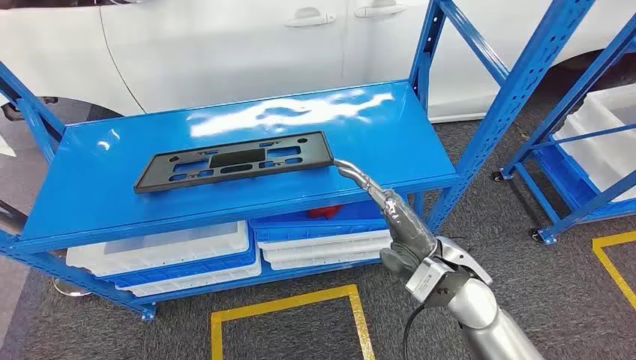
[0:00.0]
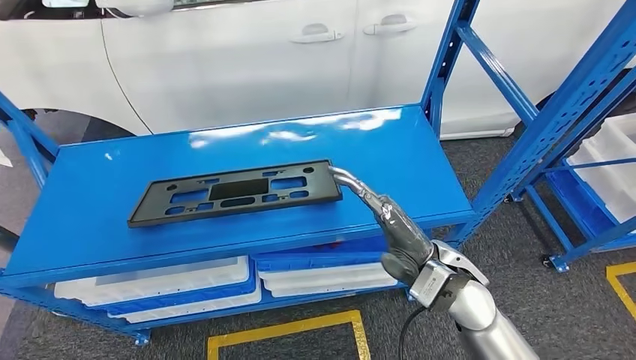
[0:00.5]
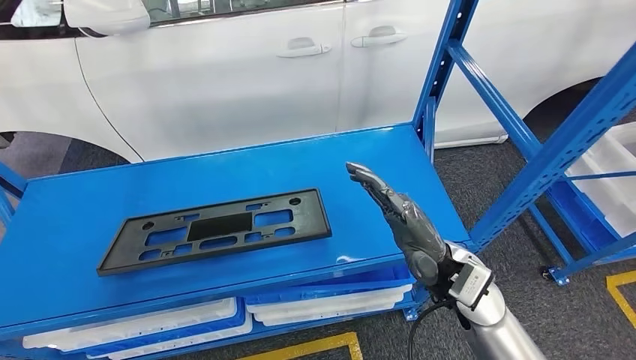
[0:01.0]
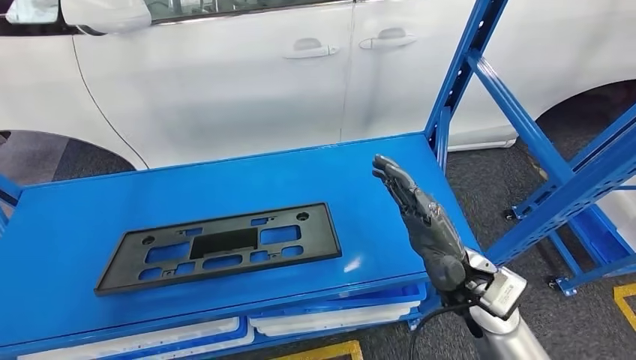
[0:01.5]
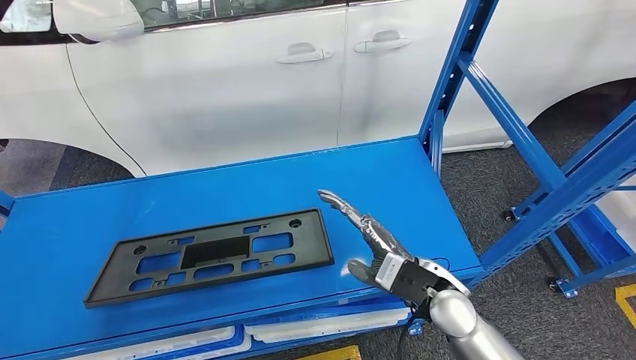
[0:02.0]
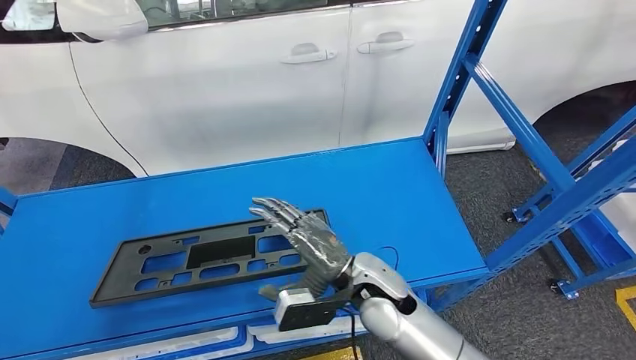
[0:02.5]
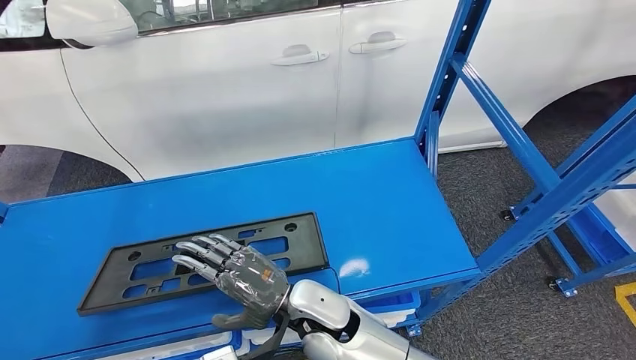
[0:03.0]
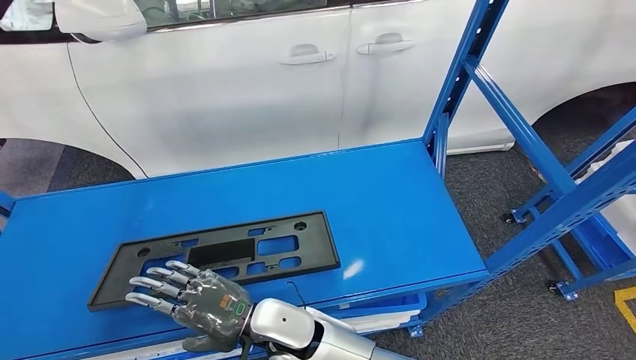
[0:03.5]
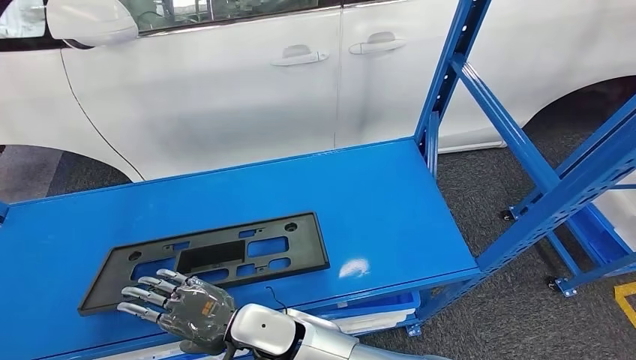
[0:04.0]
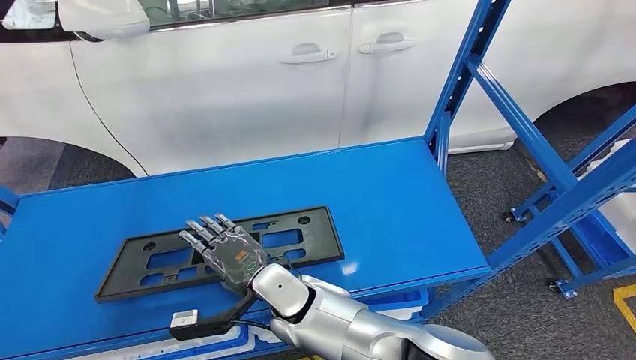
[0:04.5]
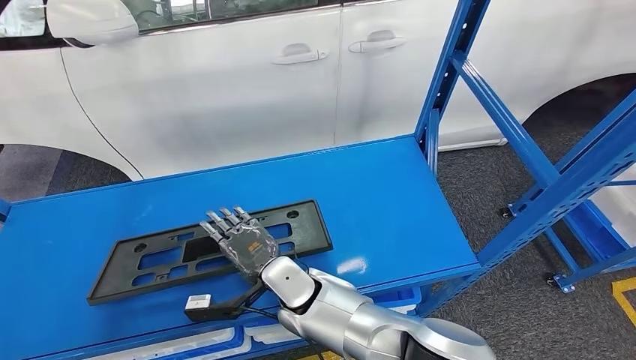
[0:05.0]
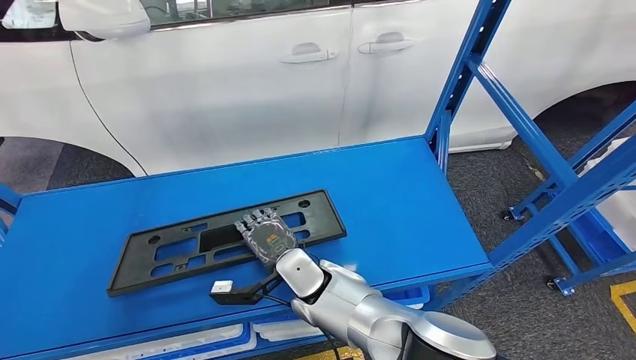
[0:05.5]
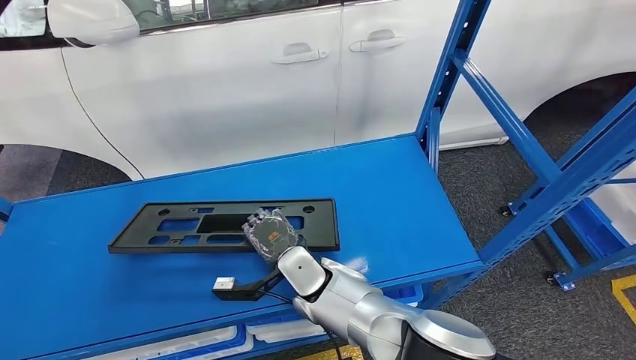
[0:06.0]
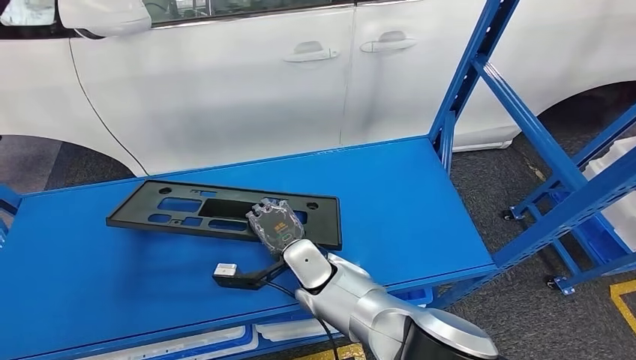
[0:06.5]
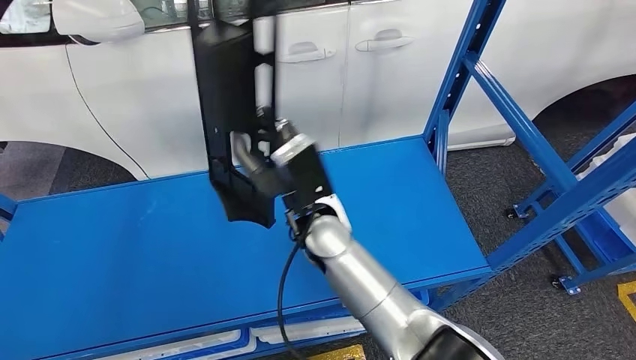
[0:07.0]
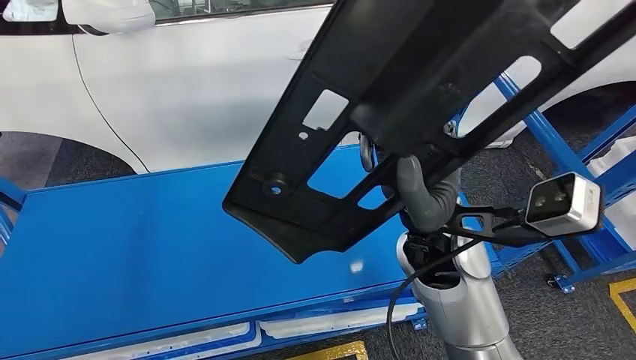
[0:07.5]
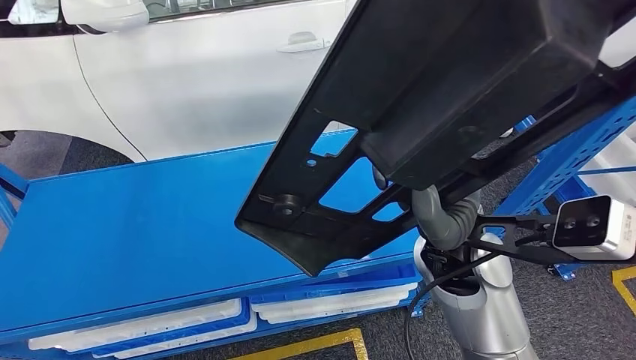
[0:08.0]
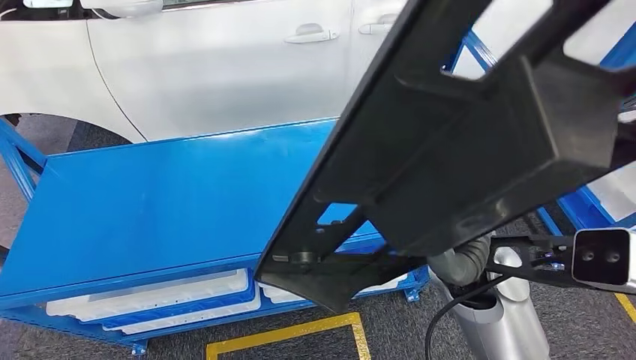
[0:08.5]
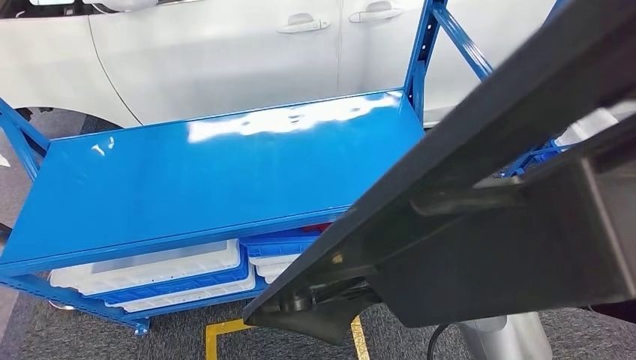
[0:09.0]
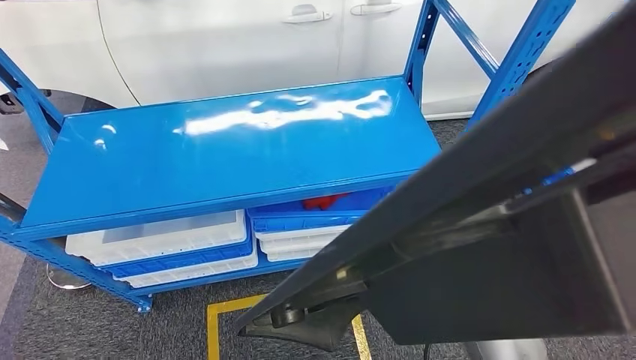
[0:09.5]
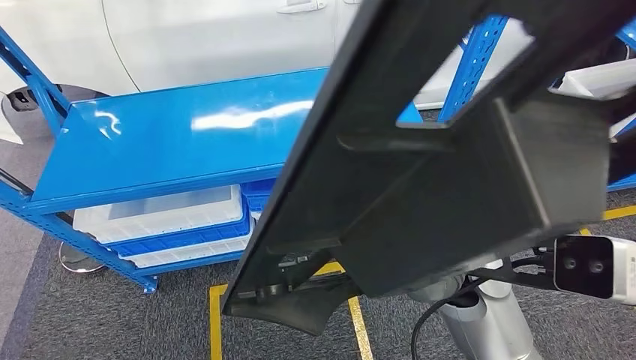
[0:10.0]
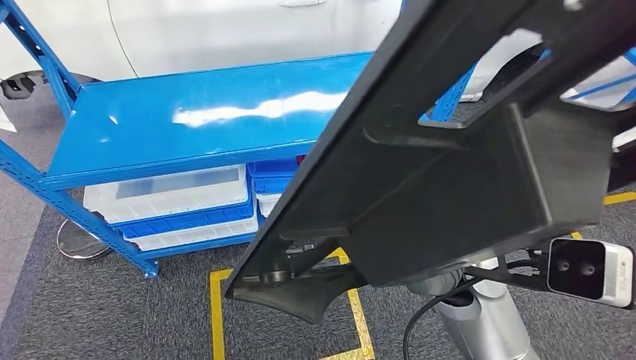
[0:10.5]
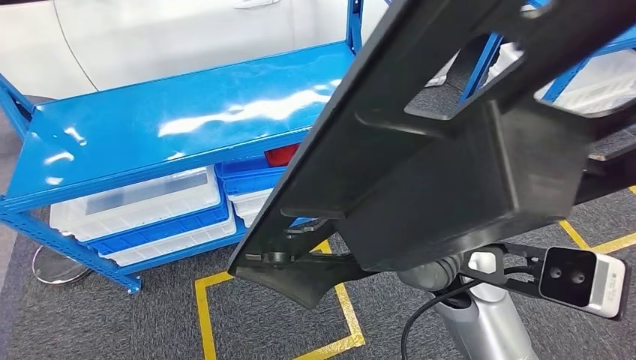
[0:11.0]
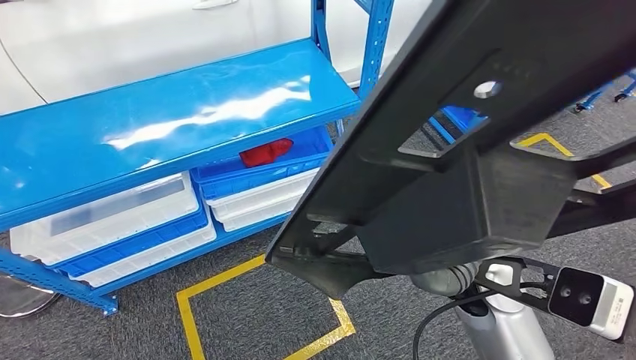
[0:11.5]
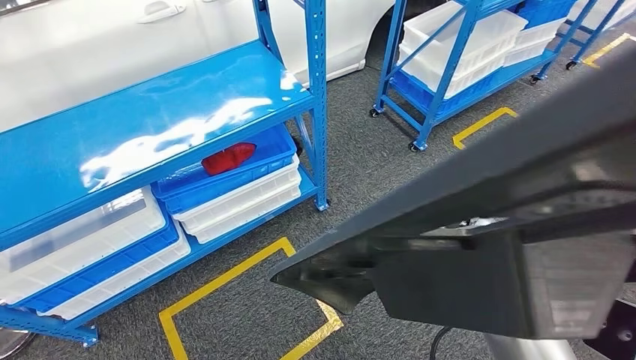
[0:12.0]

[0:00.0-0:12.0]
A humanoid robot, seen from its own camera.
Step, 0:00.0 to 0:07.5: Pick up the small component from the shelf.
0:02.0 to 0:04.0: The right hand is displaced to the left by approximately 25 cm.

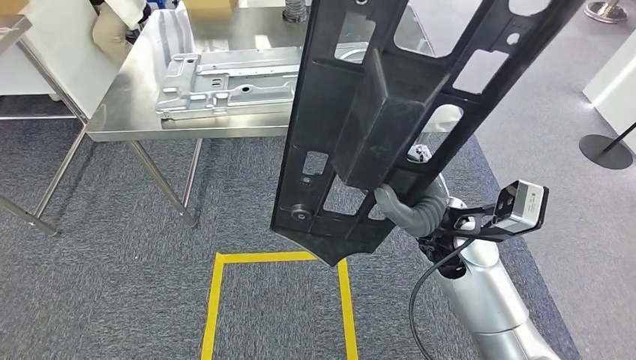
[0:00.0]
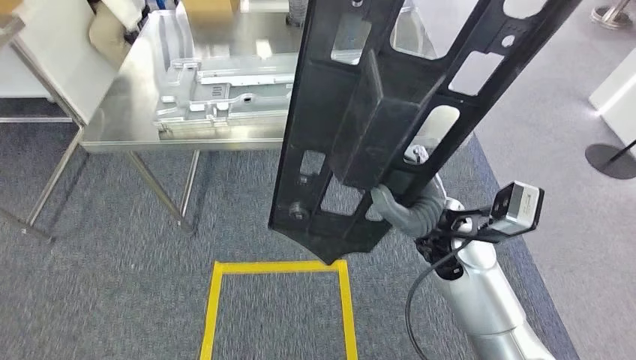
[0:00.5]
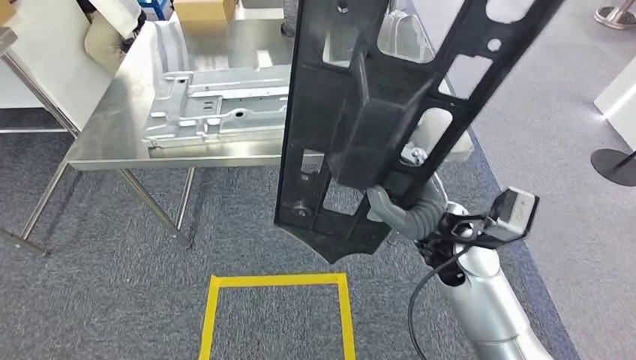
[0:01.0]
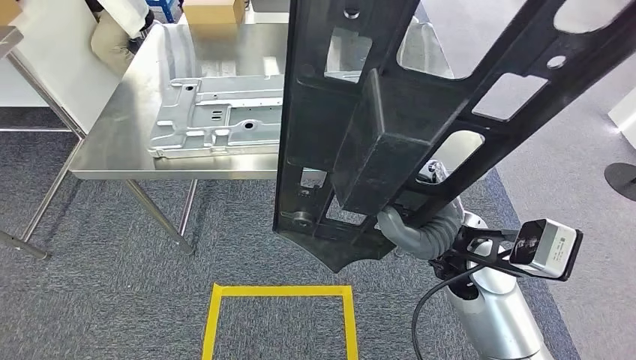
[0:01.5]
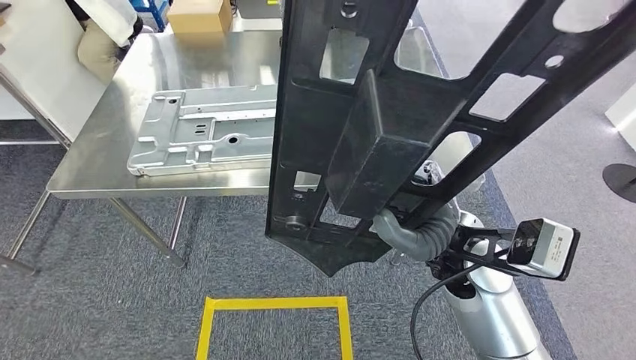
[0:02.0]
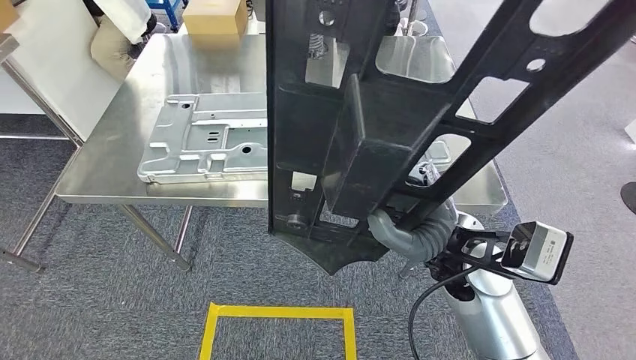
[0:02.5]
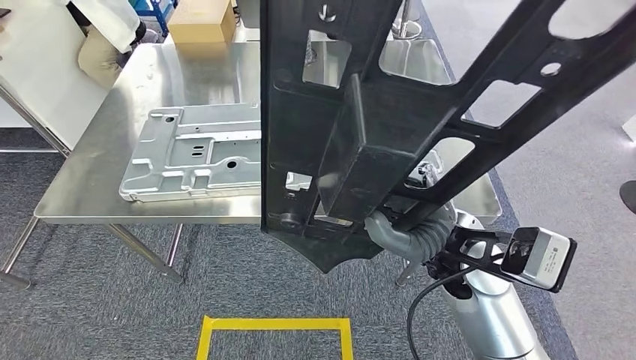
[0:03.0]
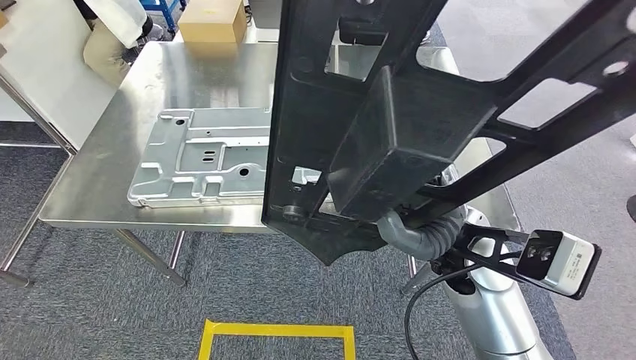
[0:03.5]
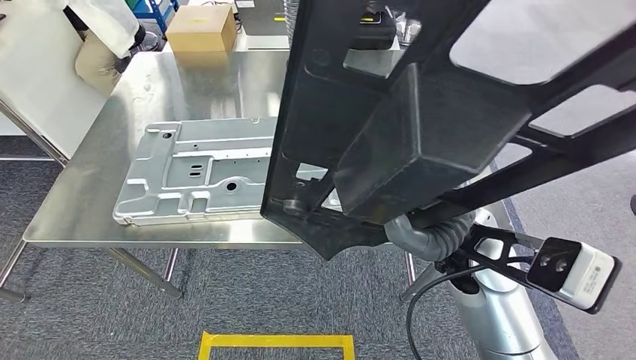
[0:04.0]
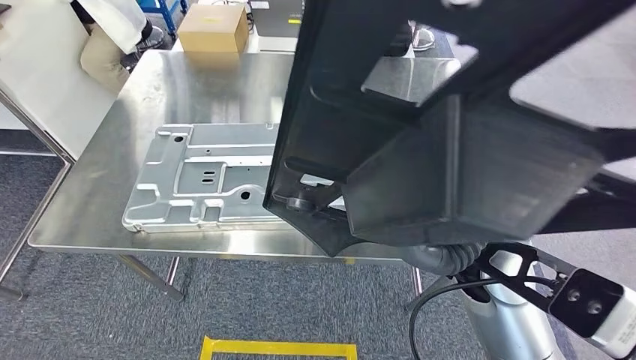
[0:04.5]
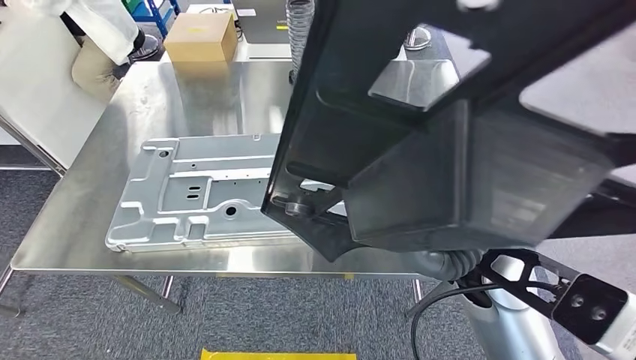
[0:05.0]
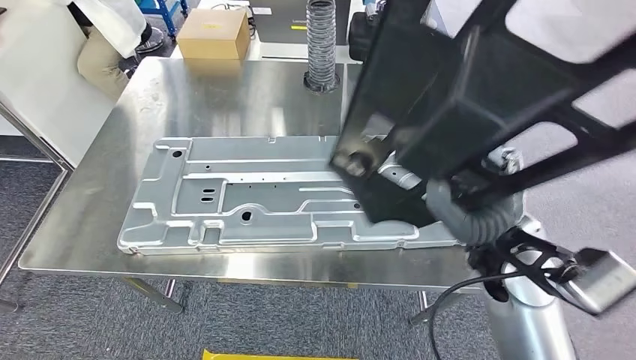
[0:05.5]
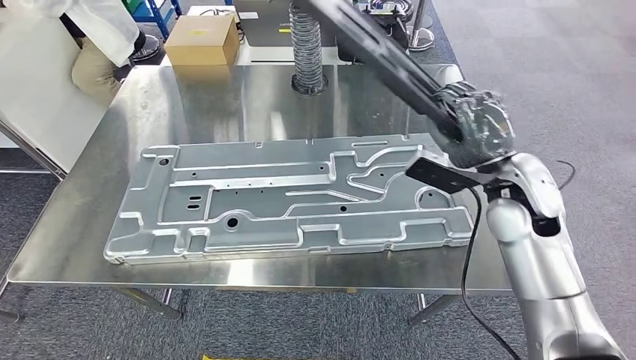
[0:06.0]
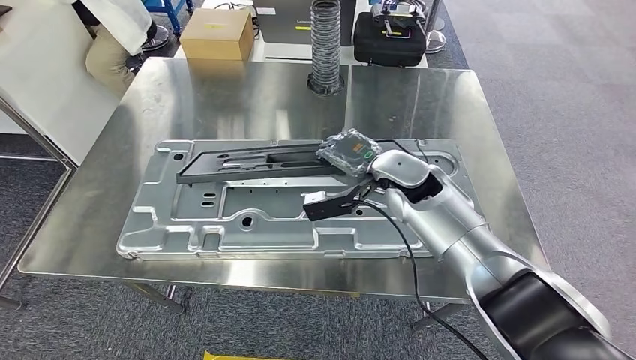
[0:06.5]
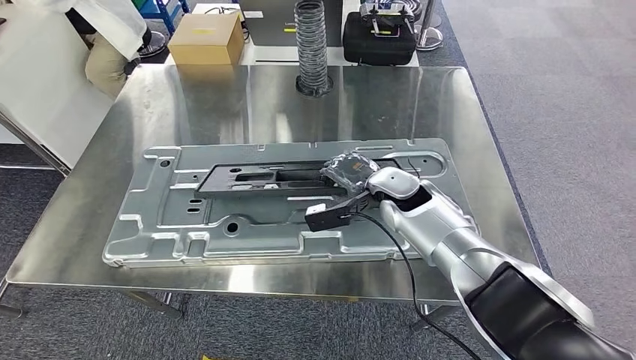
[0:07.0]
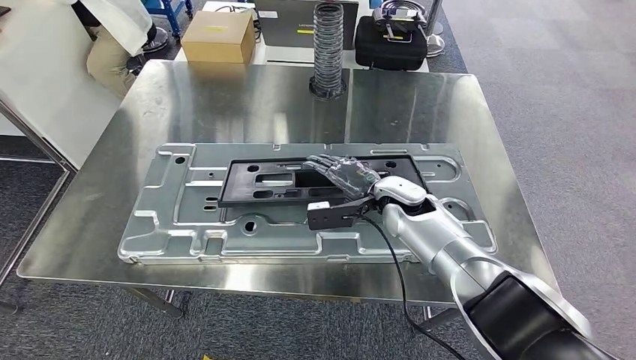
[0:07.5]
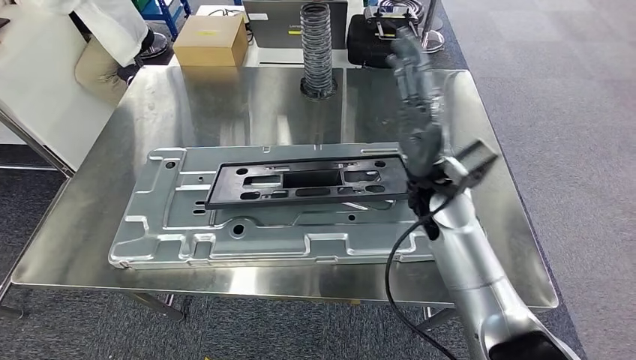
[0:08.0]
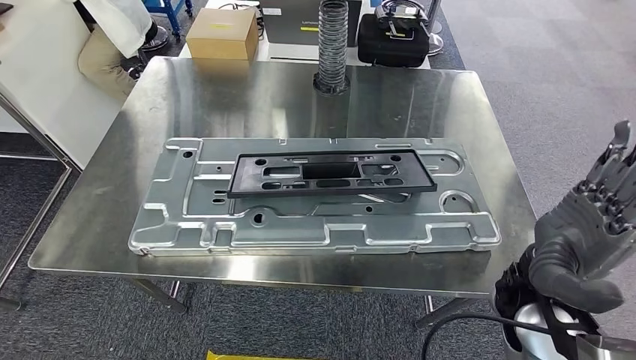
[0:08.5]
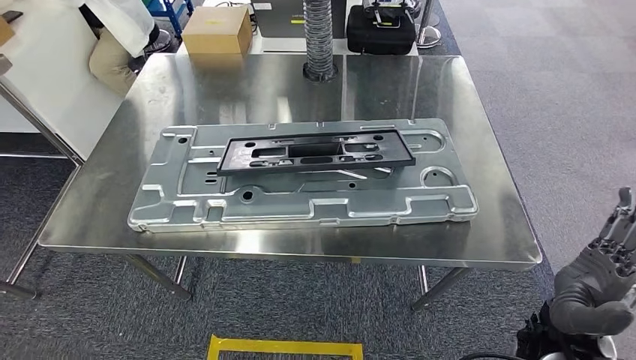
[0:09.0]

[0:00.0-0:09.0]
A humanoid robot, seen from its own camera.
Step, 0:02.0 to 0:08.5: Insert the small component into the corresponding slot on the workbench.
